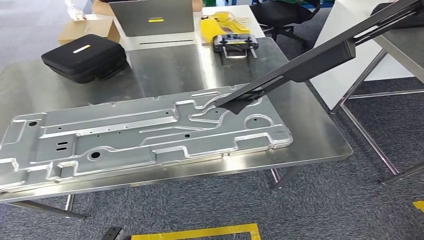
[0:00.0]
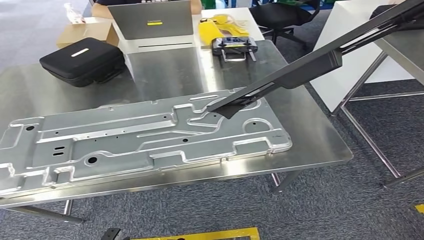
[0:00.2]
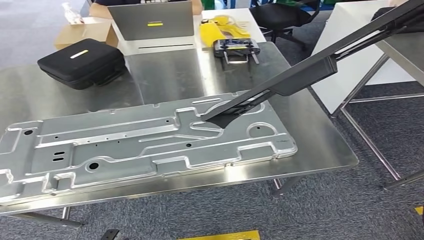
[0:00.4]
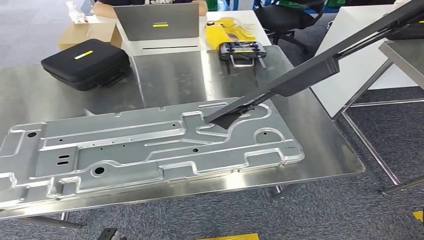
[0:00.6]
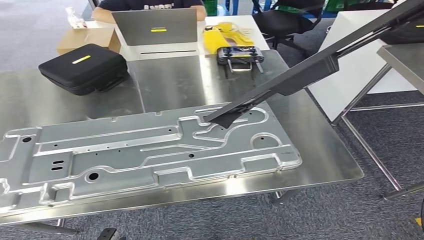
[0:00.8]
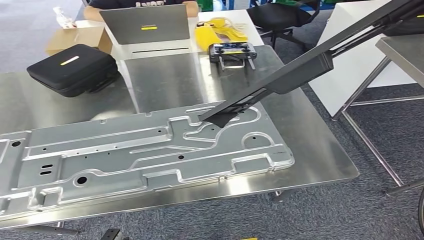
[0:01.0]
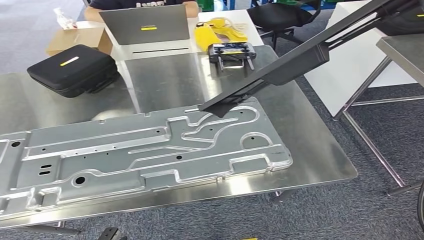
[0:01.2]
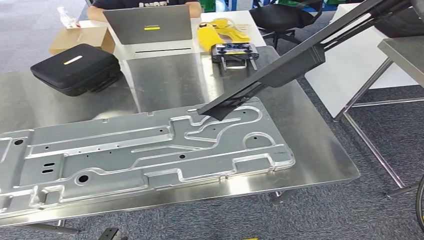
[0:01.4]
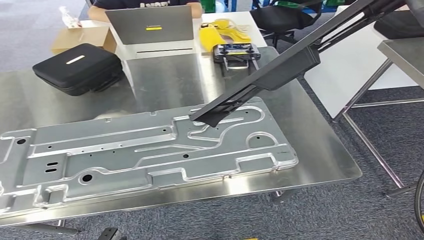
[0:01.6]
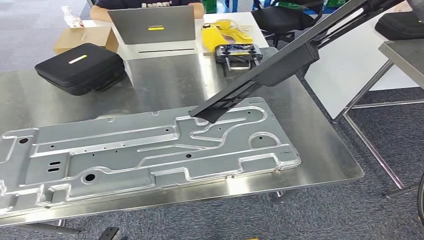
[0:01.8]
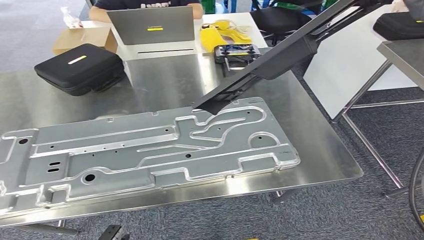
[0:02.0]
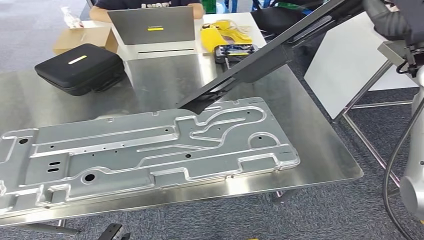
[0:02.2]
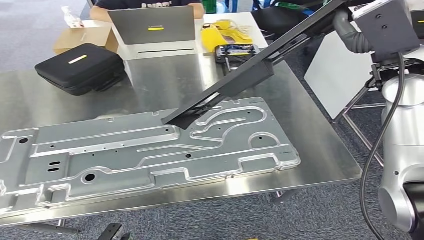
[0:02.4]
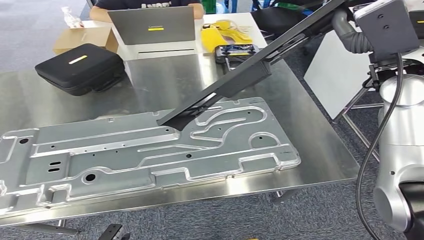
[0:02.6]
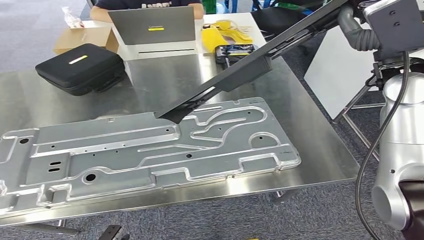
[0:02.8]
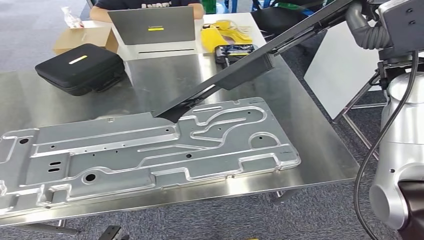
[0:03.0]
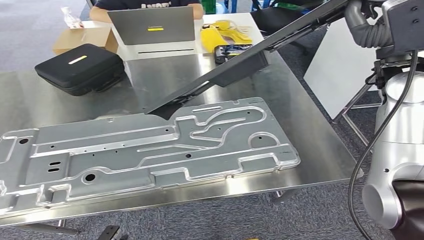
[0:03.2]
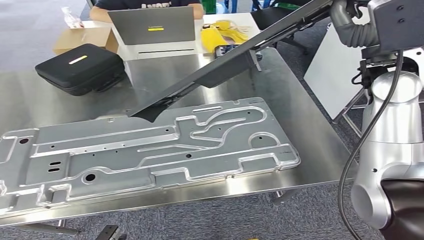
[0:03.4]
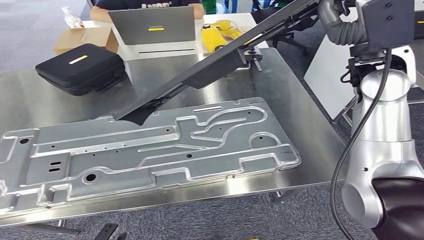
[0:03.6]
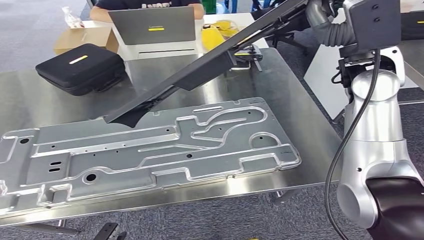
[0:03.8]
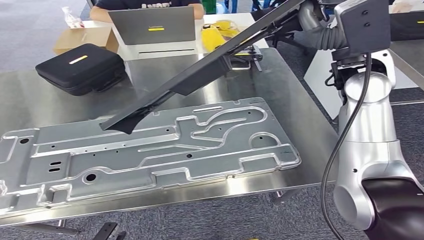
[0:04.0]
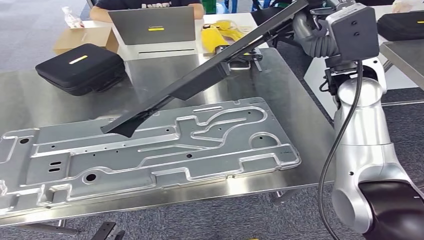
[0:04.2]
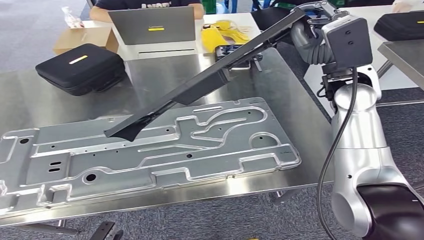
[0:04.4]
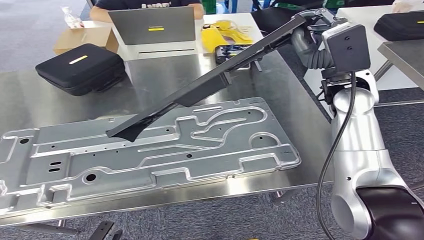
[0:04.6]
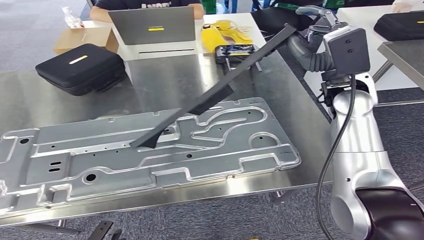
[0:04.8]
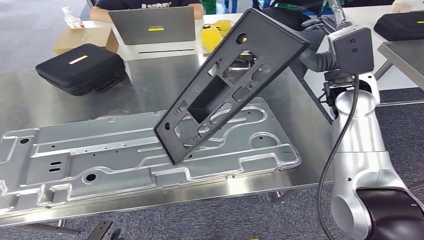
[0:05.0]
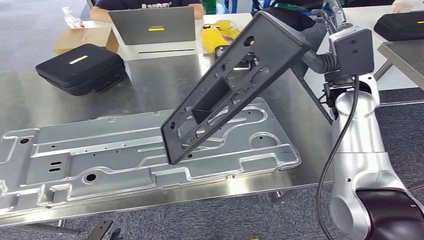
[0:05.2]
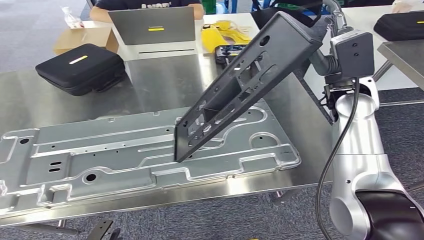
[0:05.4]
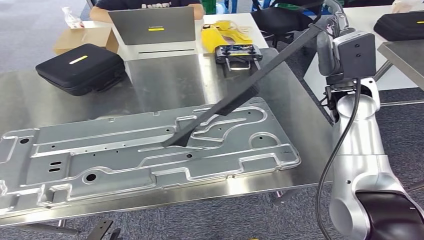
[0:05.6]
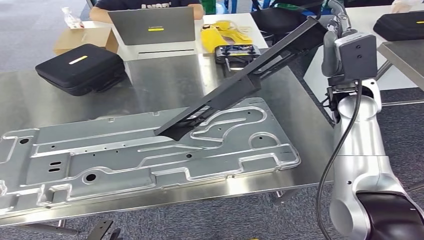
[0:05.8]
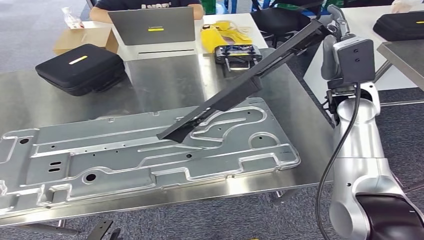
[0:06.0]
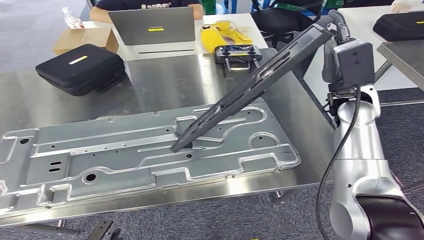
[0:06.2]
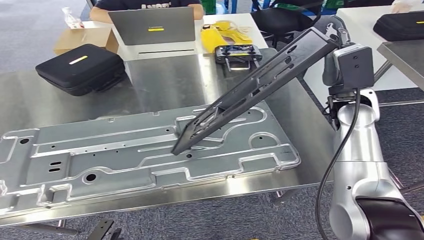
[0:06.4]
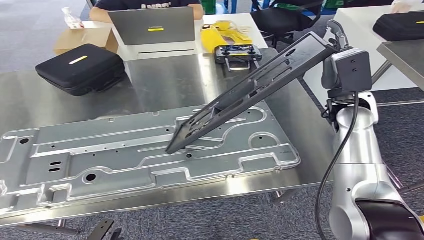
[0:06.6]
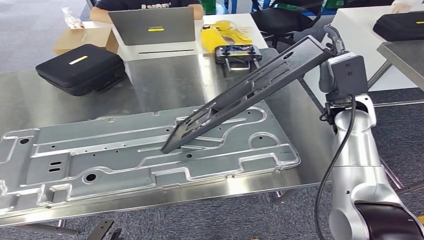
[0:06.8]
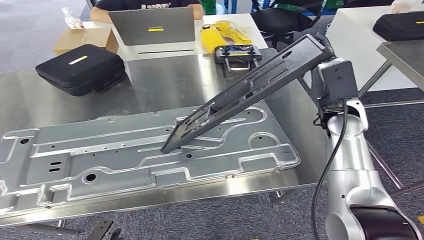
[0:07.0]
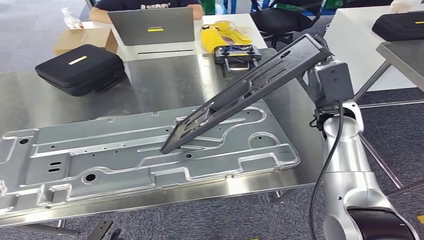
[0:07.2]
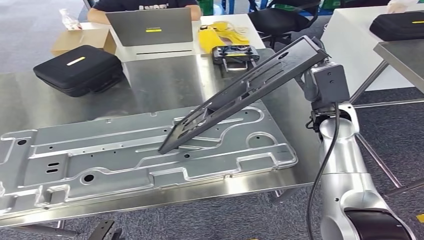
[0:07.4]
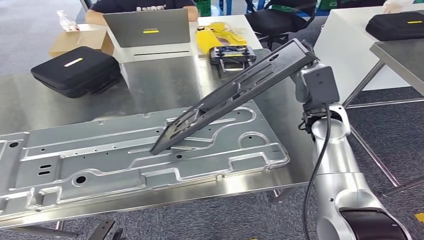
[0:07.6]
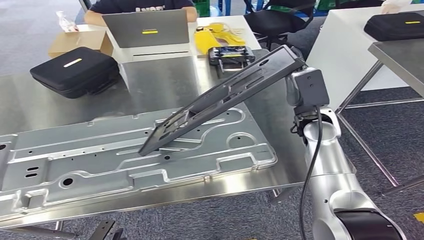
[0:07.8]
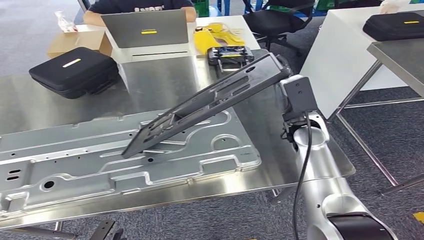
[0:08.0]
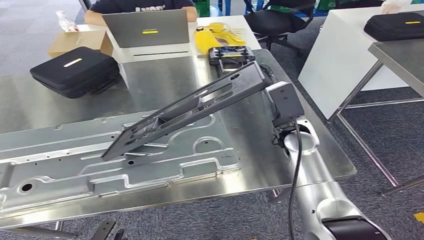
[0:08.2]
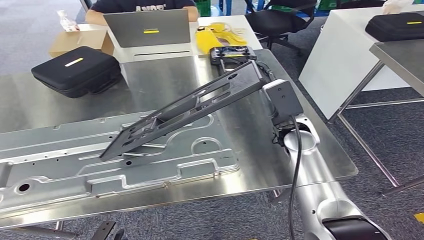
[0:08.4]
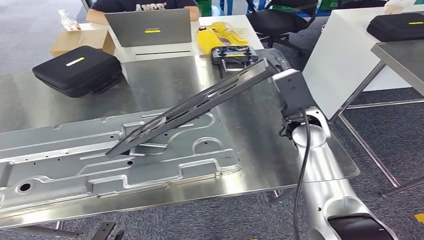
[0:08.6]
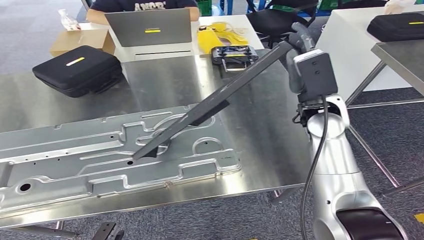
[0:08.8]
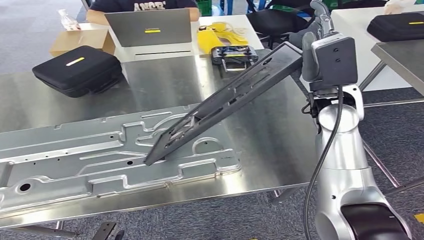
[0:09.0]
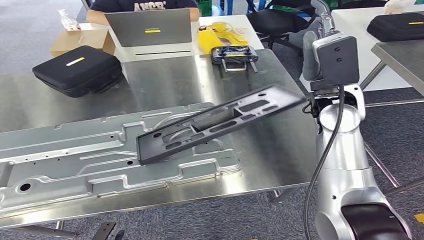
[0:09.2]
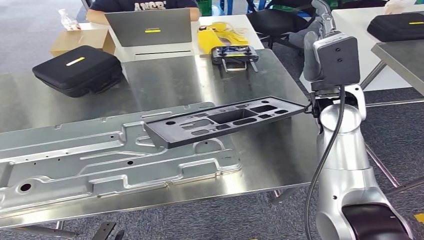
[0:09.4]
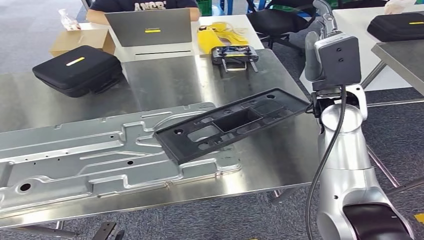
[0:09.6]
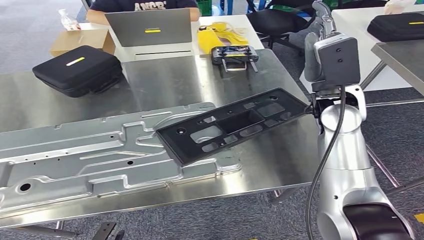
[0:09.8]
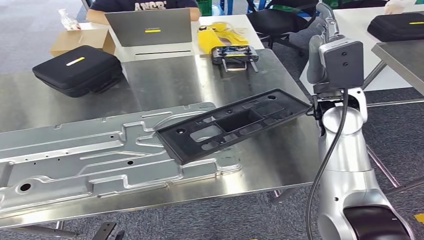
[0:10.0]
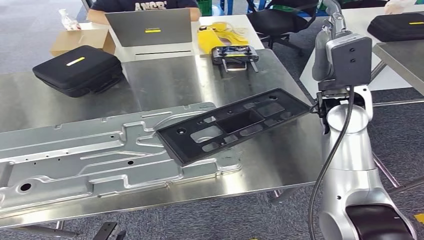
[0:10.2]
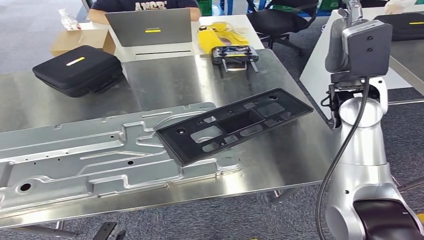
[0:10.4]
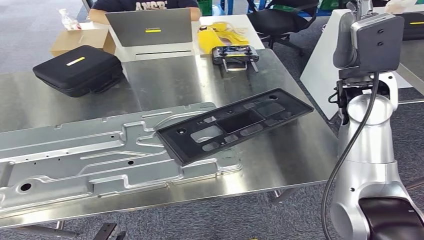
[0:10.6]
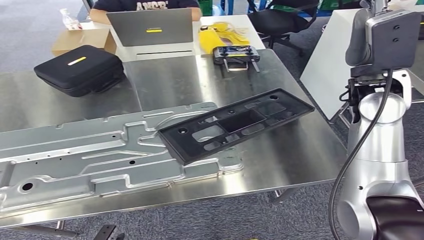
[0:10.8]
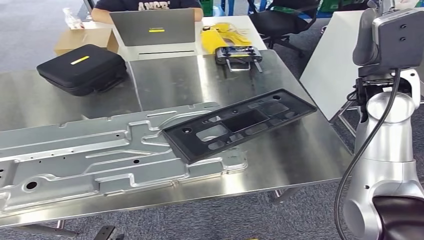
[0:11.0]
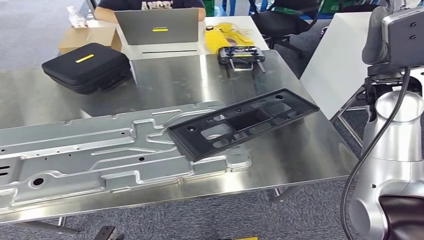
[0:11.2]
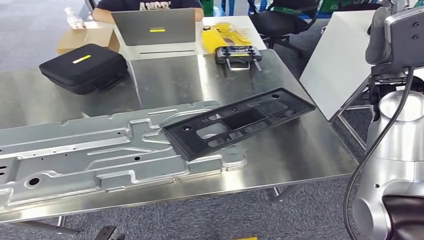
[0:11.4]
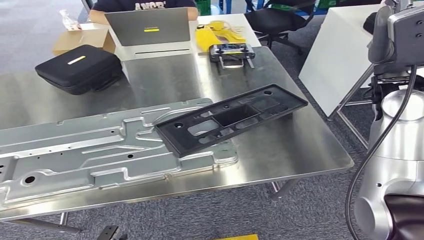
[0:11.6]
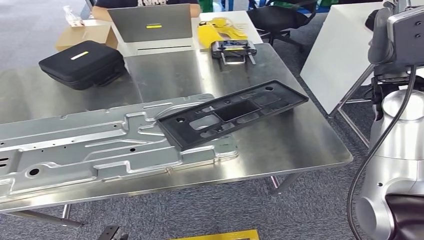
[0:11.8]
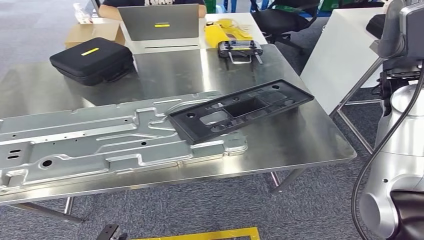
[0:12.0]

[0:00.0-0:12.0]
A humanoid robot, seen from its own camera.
Step, 0:00.0 to 0:12.0: Insert the large material into the corresponding slot on the workbench.
0:04.4 to 0:06.0: The right hand shifts by approximately 5 cm.

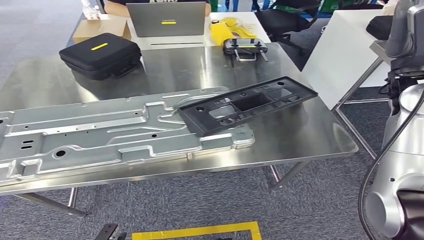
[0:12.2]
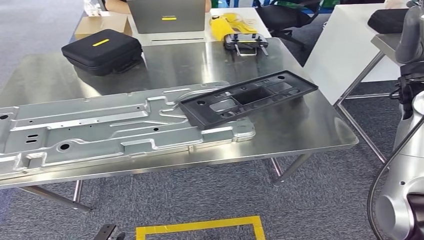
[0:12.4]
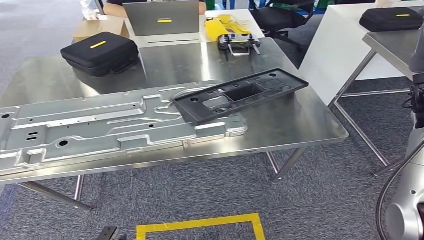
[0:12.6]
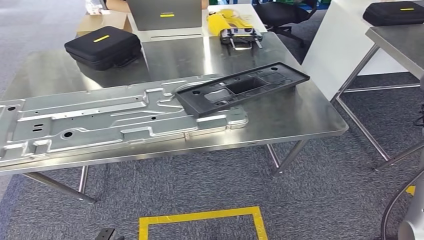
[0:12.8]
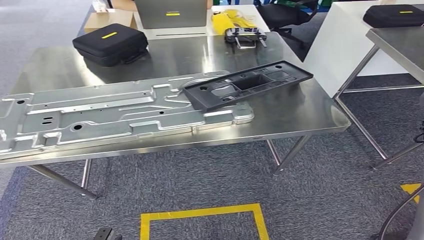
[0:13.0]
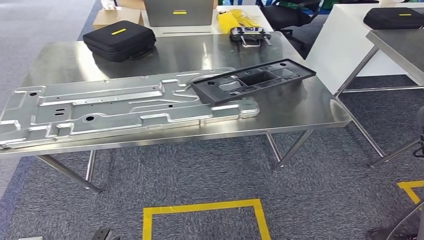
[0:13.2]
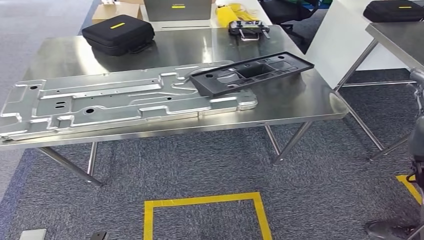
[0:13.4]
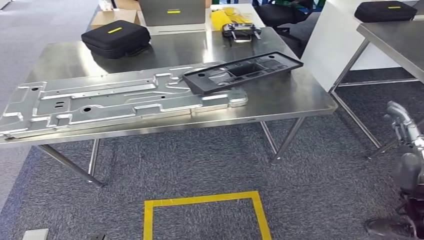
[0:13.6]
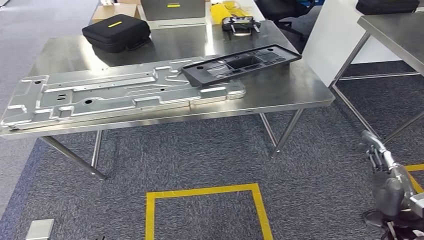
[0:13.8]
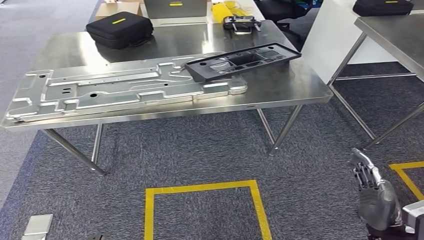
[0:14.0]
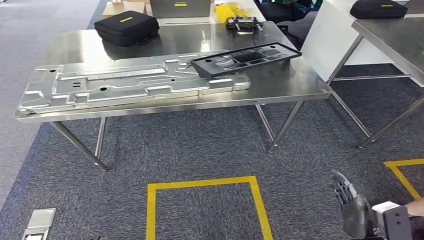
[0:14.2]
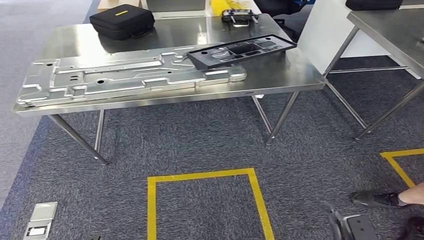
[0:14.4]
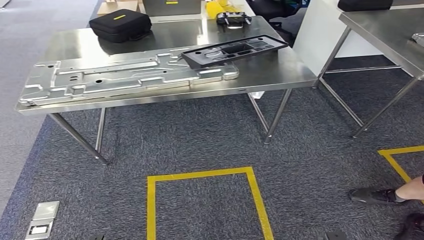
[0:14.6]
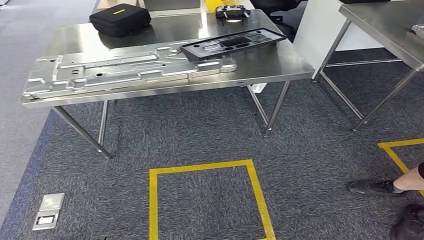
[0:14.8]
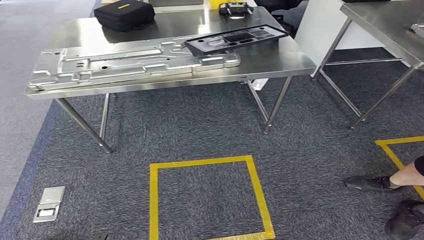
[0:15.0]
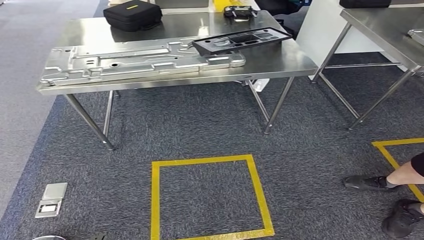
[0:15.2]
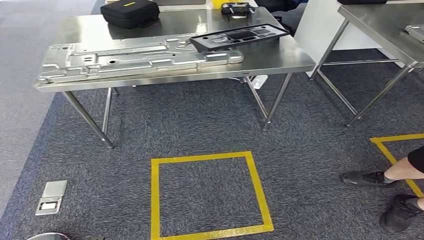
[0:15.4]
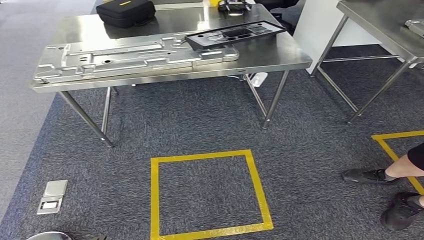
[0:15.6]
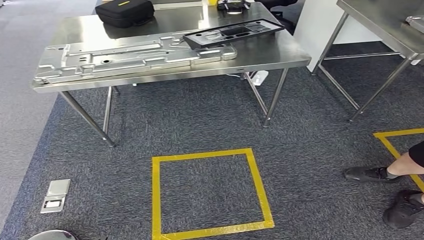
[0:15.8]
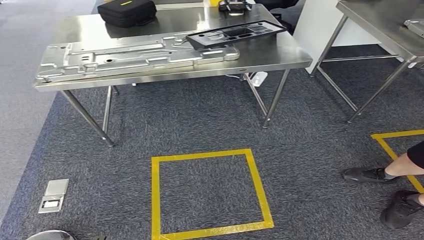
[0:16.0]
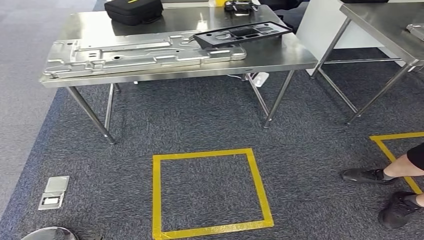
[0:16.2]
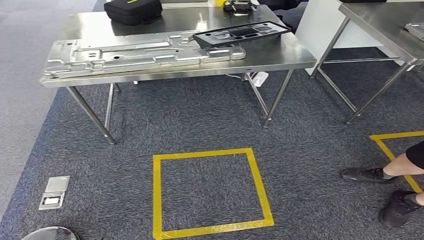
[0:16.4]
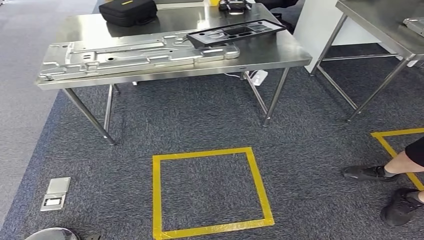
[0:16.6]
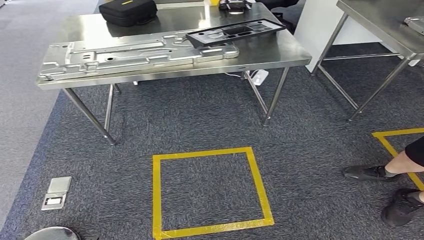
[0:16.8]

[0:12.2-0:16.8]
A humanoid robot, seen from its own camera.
Step, 0:12.2 to 0:16.8: Return to the initial position at the shelf.
